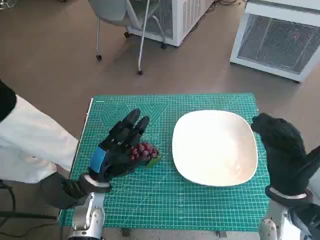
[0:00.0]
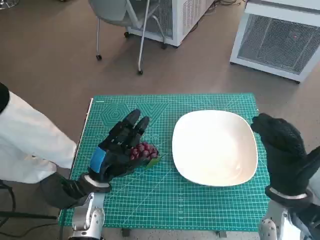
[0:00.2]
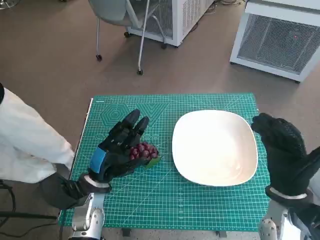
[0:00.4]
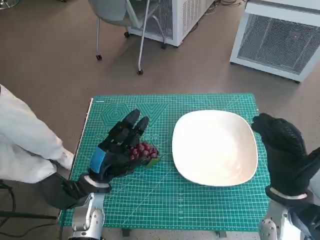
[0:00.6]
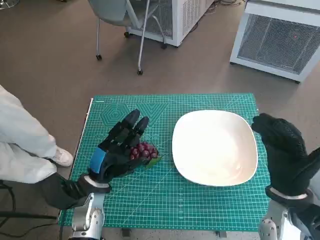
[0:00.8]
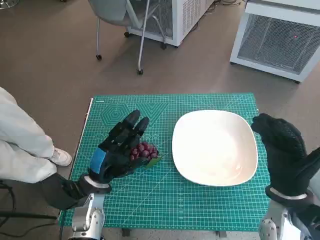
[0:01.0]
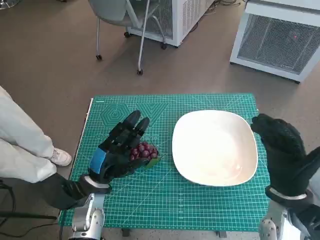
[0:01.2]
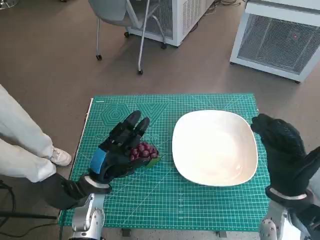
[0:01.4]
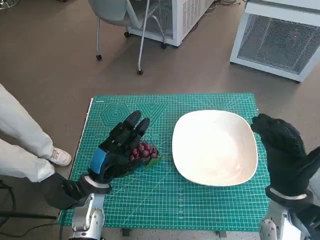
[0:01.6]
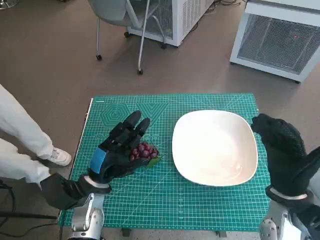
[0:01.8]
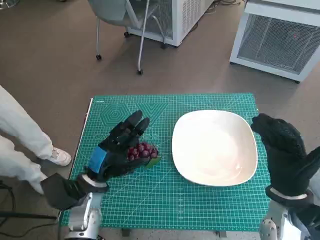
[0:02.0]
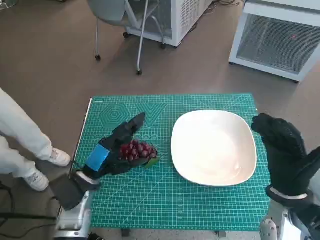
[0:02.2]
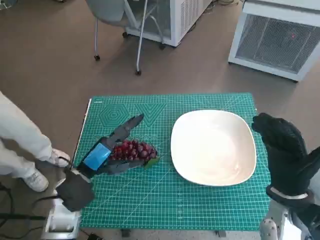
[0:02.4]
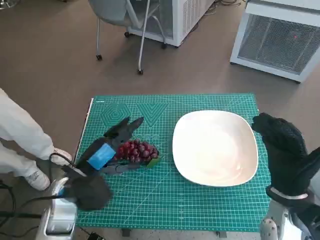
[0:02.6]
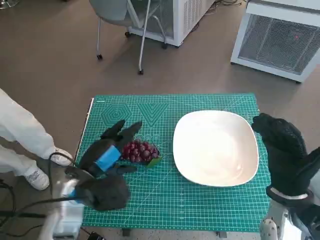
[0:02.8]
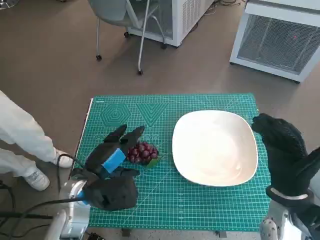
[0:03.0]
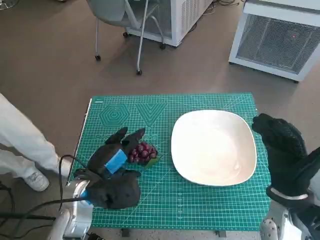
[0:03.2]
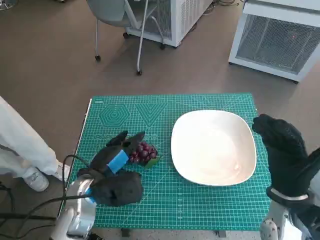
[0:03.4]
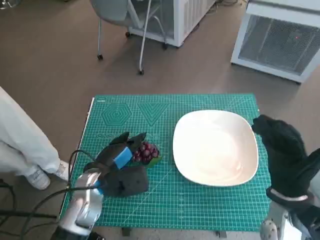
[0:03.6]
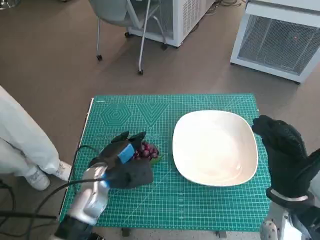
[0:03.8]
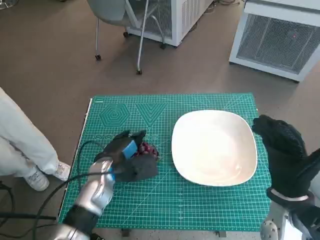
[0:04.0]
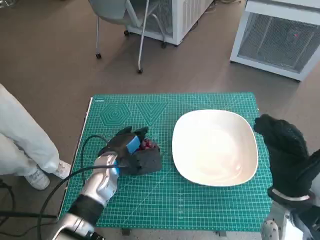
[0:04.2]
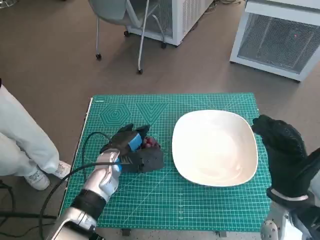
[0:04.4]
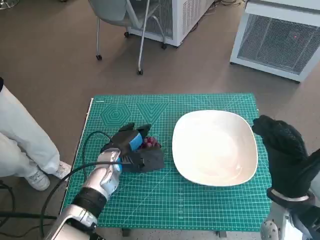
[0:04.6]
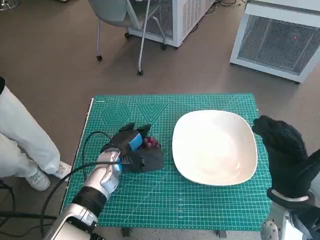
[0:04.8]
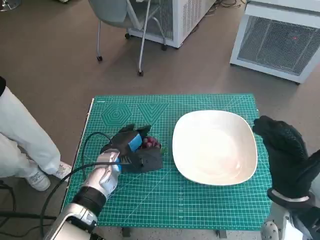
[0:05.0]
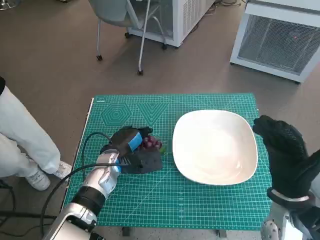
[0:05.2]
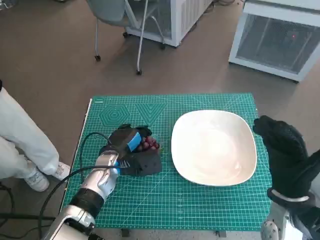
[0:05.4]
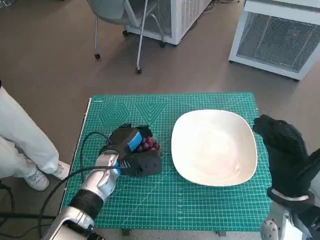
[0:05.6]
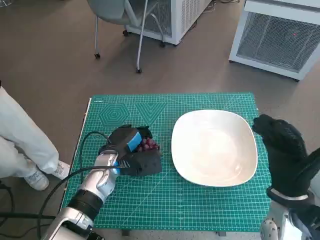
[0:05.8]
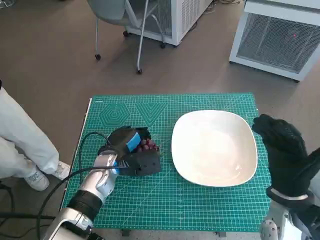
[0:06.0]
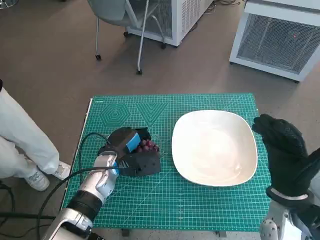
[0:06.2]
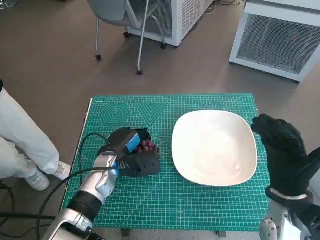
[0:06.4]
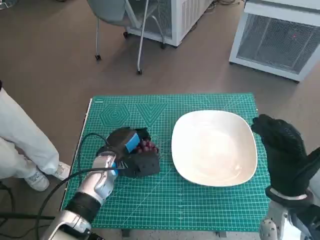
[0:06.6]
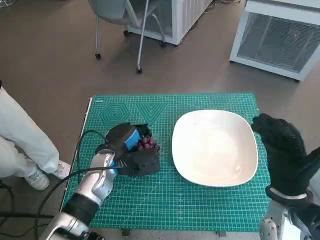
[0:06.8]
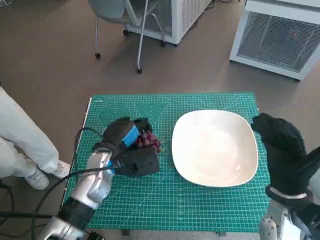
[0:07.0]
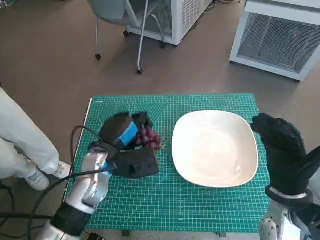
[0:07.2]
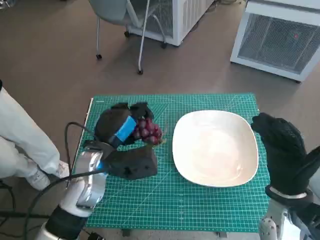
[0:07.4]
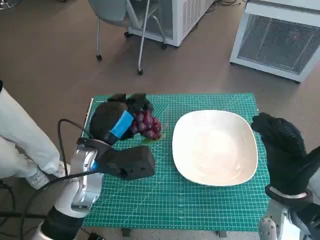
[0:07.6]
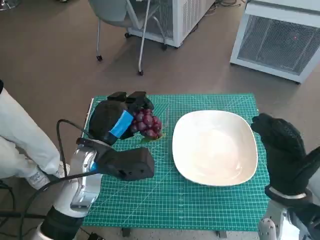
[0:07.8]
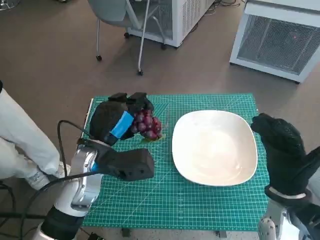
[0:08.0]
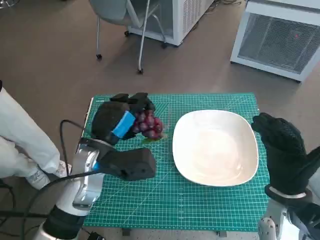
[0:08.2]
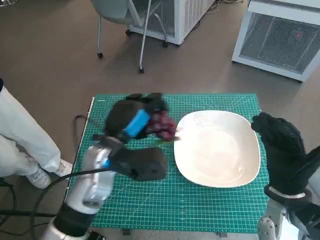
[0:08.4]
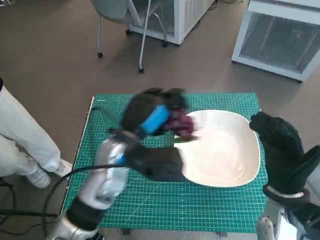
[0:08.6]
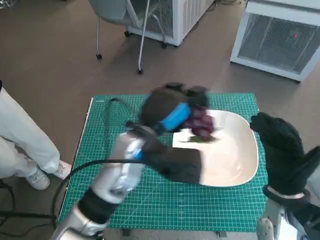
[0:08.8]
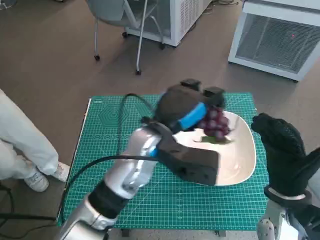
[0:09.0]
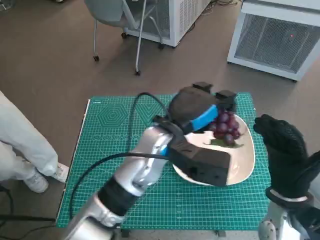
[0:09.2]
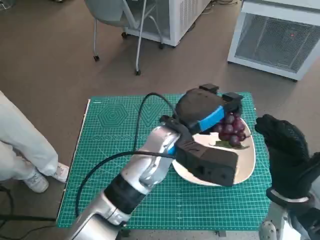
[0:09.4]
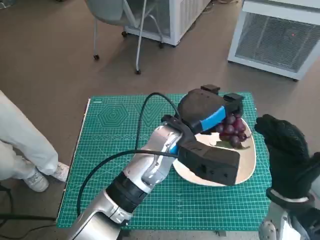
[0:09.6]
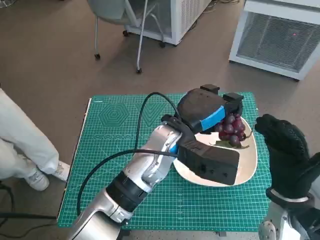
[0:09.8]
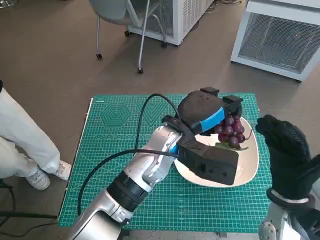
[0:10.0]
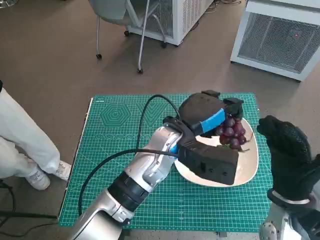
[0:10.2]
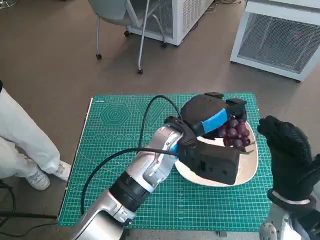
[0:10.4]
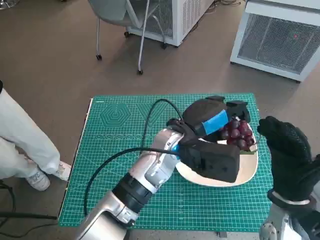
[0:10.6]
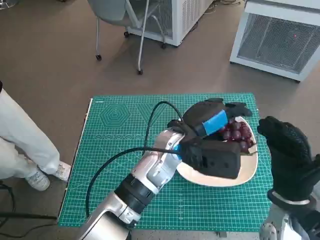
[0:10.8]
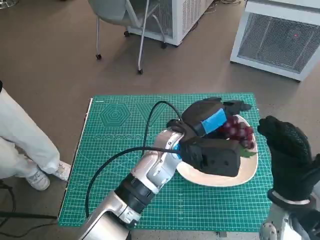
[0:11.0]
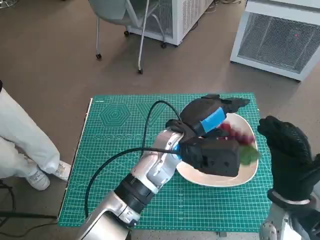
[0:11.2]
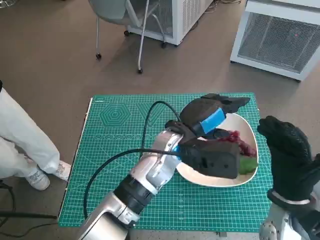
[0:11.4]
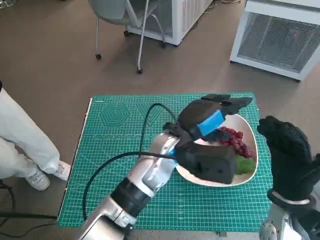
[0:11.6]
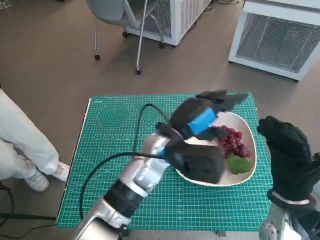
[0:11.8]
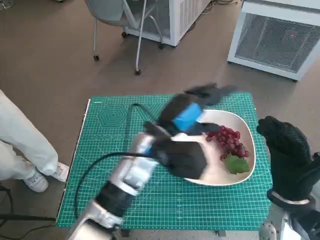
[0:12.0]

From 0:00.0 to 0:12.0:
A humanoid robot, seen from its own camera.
Task of the whole recording: Pick up the grapes and put them on the plate.
Step, from 0:00.0 to 0:06.0: Grasp the grapes with left hand.
From 0:01.6 to 0:03.0: The left hand moves upward, about 5 cm.
From 0:03.0 to 0:04.4: The left hand travels forward by roughly 10 cm.
From 0:04.4 to 0:06.0: The hands make only small movements.
From 0:06.0 to 0:07.6: The left hand is displaced upward by some 10 cm.
From 0:07.6 to 0:09.0: The left hand is displaced to the right by roughly 10 cm.
From 0:09.0 to 0:10.4: The left hand shifts by about 5 cm.

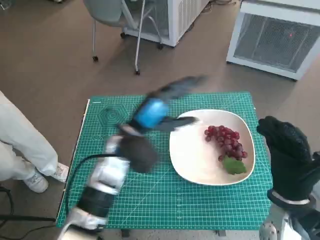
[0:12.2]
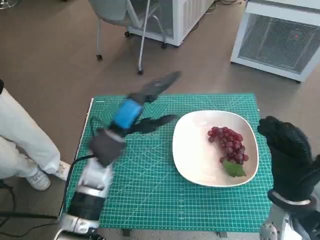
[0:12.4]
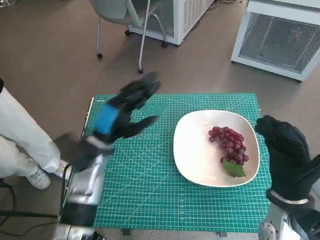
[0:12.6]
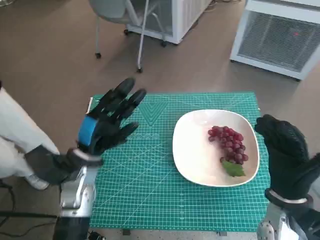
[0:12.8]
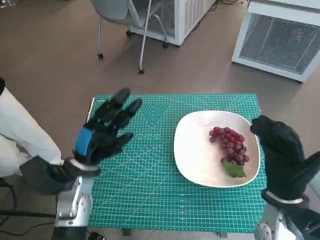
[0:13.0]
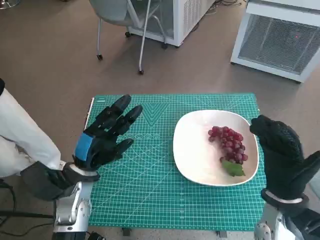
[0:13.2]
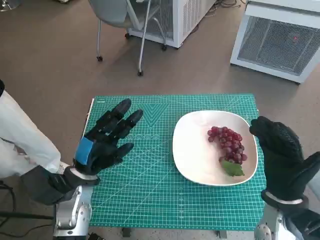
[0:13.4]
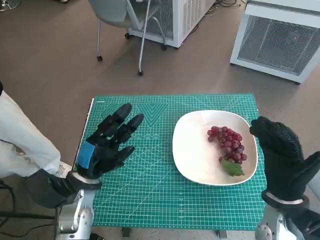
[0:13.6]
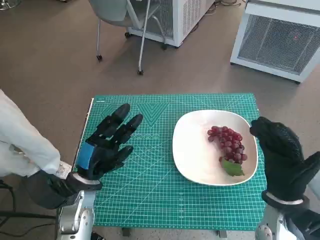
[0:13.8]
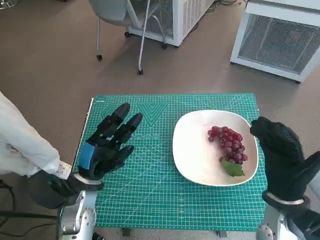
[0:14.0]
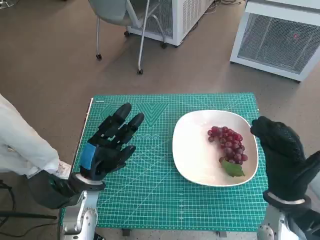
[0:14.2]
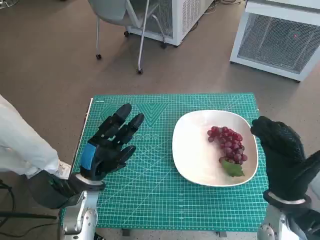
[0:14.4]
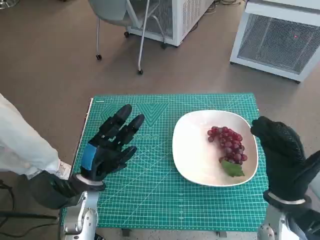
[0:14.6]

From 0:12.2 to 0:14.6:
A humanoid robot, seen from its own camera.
Task of the whole recording: Pick up the grapes and put them on the plate.
From 0:12.2 to 0:13.4: The left hand shifts approximately 15 cm to the left, downward and backward.
From 0:13.4 to 0:14.6: The hands make only small movements.

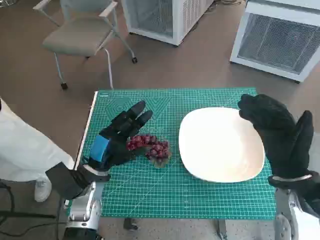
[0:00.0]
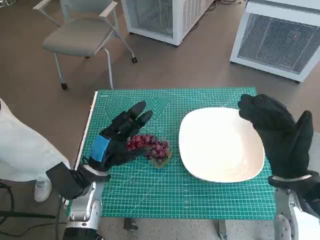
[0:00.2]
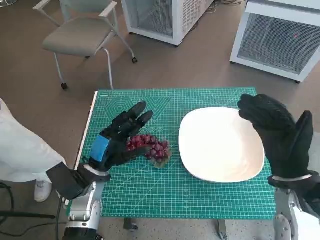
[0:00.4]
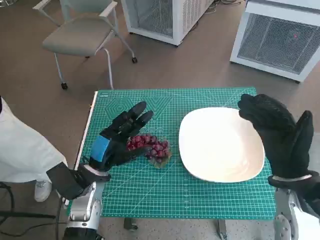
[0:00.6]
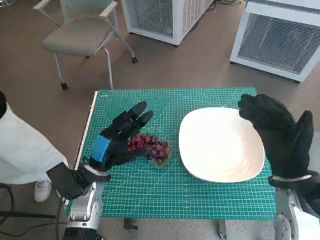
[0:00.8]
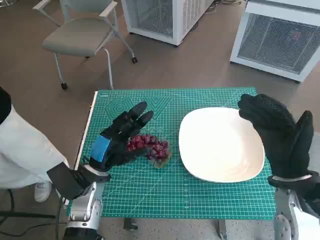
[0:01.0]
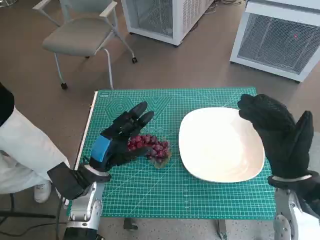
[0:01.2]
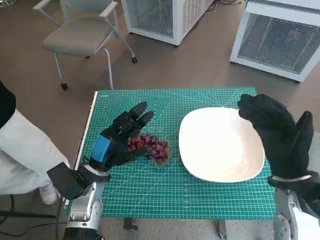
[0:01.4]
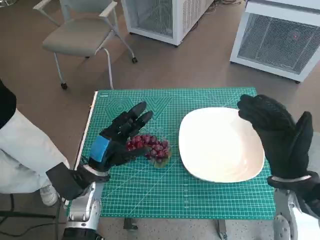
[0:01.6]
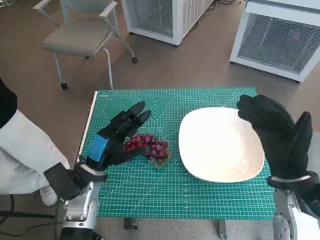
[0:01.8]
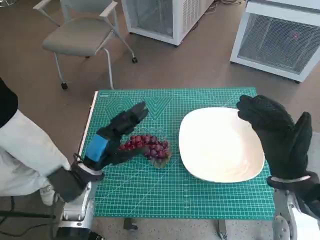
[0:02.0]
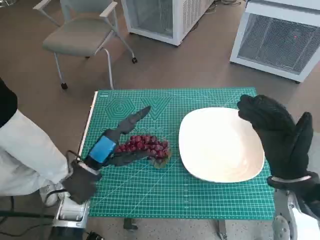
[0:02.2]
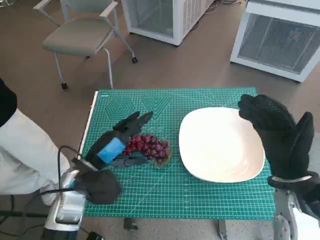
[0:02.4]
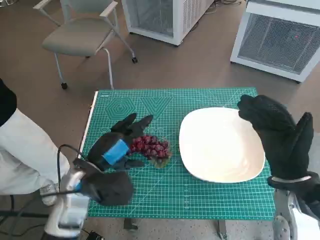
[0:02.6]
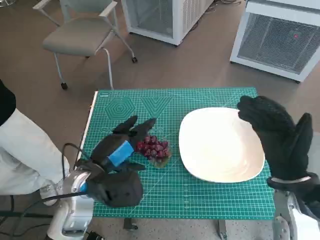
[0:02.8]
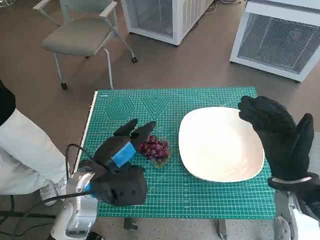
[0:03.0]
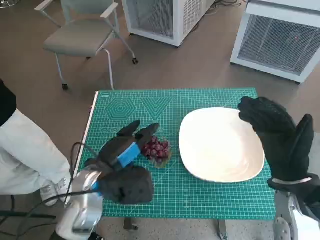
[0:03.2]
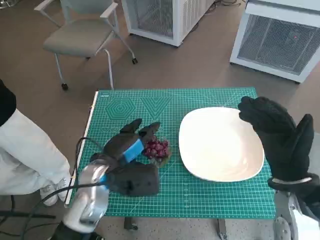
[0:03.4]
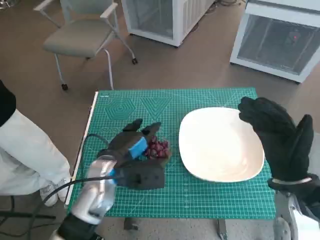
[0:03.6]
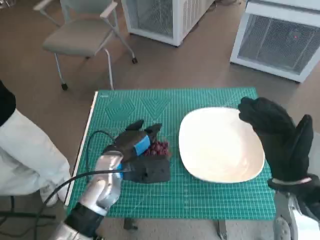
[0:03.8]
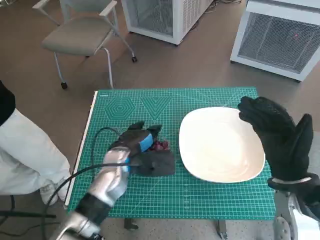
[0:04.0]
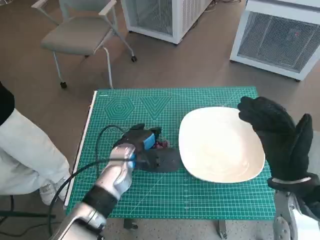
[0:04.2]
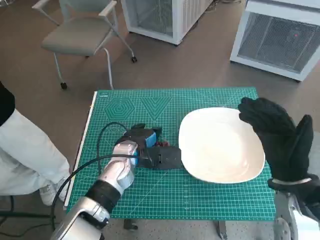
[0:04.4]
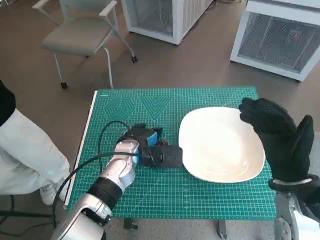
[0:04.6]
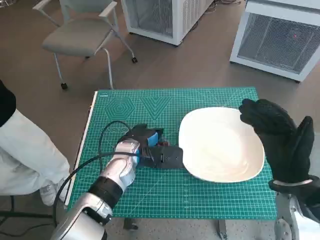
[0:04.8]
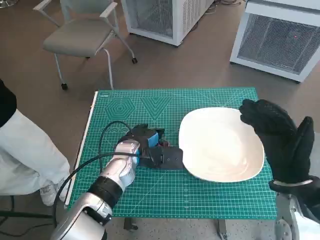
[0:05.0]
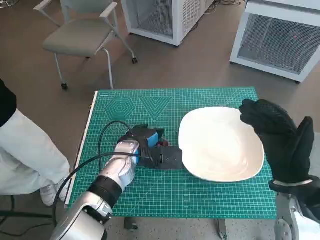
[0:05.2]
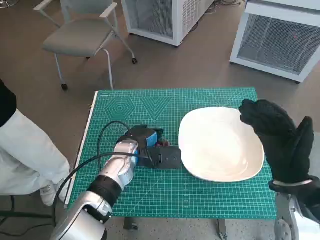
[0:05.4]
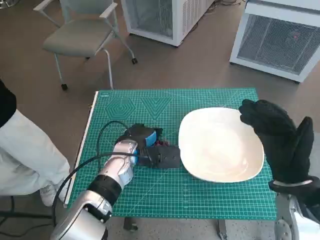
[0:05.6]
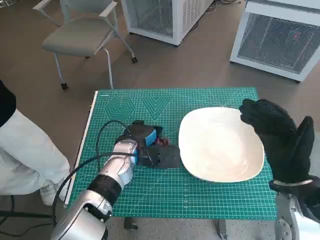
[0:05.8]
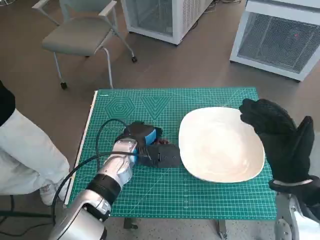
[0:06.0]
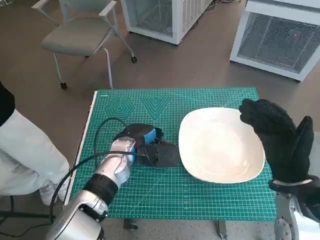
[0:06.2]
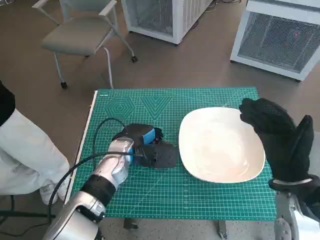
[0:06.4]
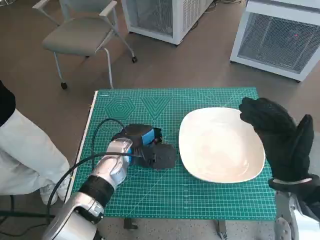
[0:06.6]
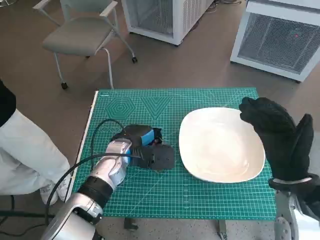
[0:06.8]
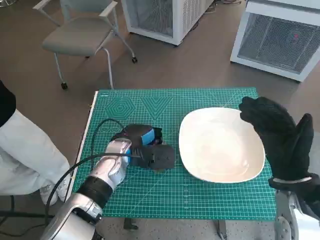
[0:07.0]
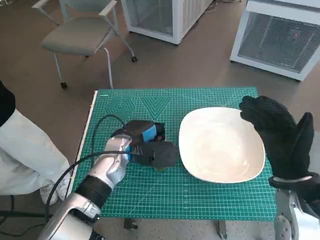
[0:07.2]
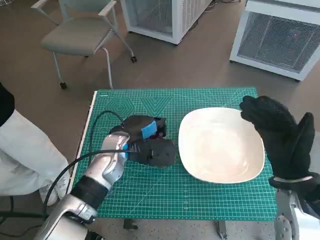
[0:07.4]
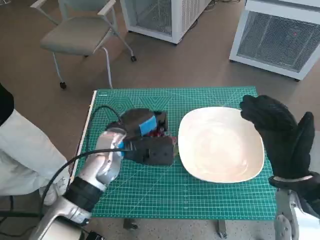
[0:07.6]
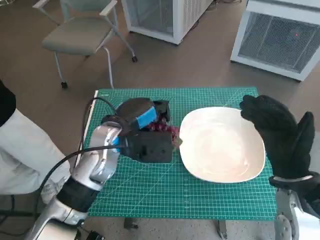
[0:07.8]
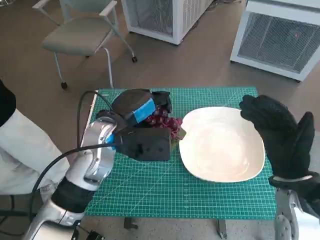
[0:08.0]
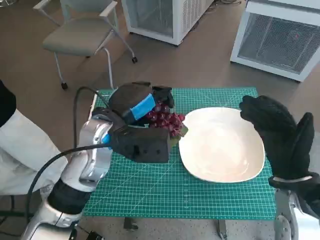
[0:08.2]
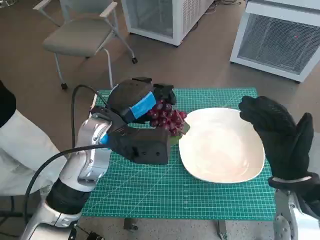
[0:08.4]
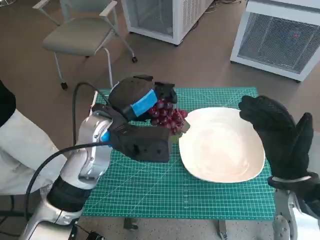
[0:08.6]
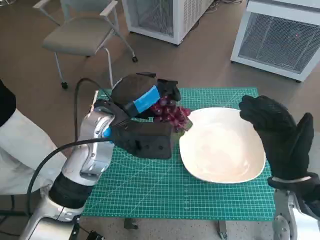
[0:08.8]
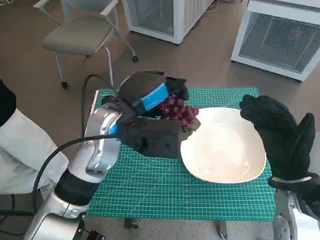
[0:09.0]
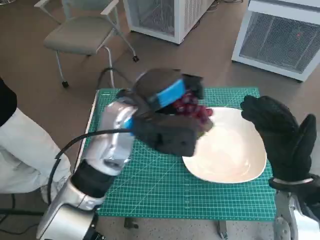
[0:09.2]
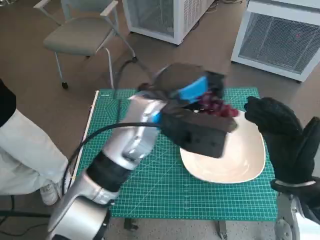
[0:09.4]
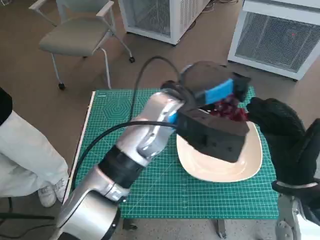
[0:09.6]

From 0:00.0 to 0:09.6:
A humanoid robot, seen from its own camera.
Task of the whole recording: Pick up the grapes and put them on the plate.
Step, from 0:00.0 to 0:06.4: Grasp the grapes with left hand.
From 0:01.6 to 0:03.2: The left hand ends up approximately 5 cm from where it was.
From 0:03.2 to 0:04.8: The left hand travels forward by approximately 10 cm.
From 0:04.8 to 0:06.4: There are only small adjustments of the hands.
From 0:06.4 to 0:08.0: The left hand travels upward by about 10 cm.
From 0:08.0 to 0:09.6: The left hand goes some 10 cm to the right and upward.
